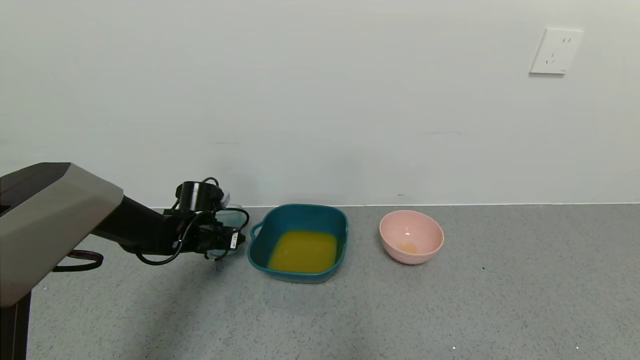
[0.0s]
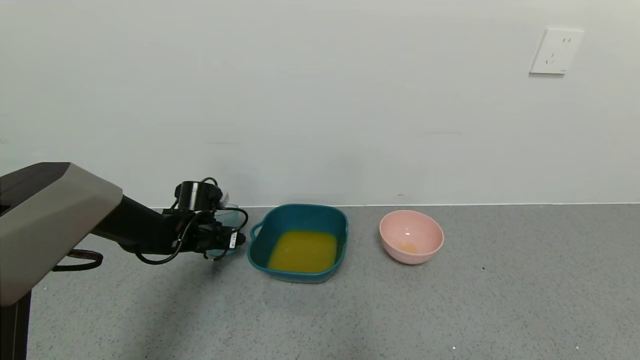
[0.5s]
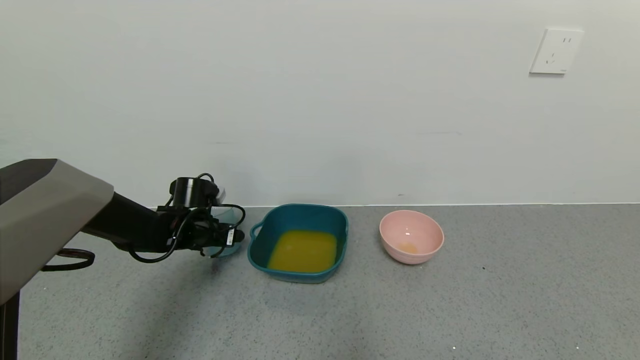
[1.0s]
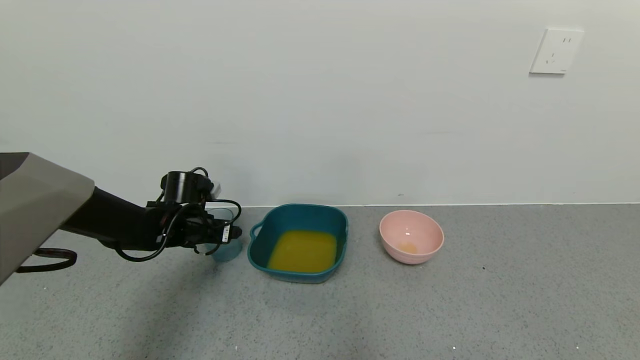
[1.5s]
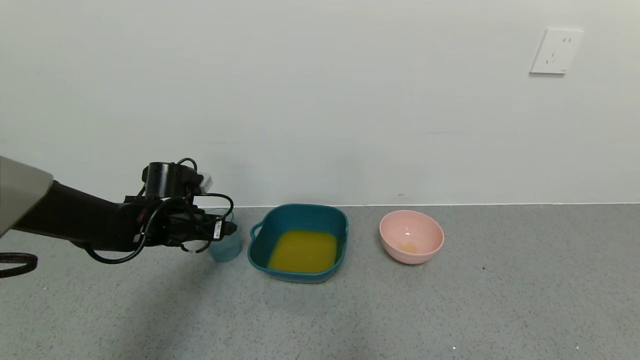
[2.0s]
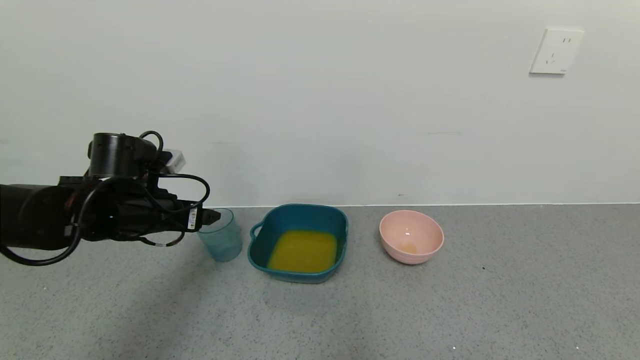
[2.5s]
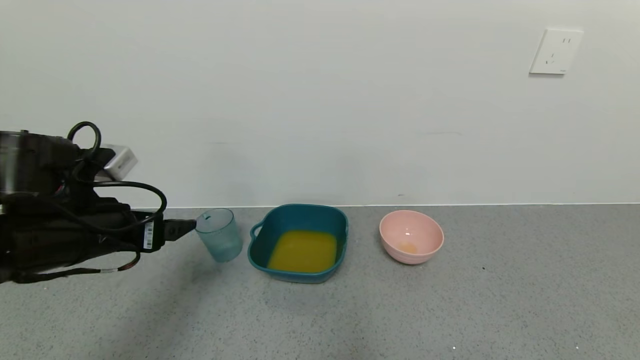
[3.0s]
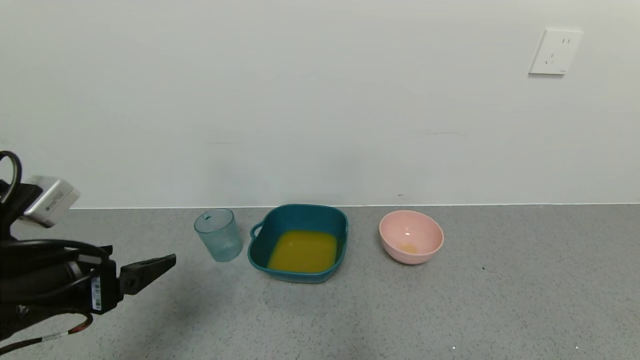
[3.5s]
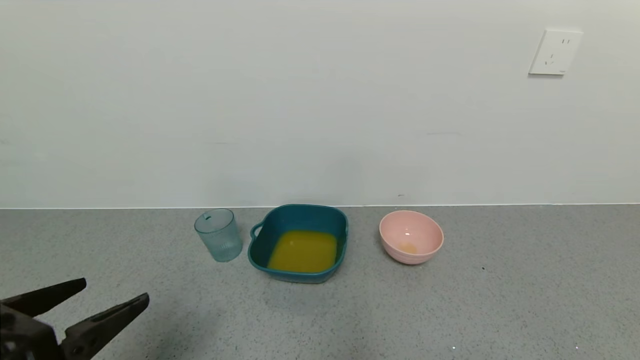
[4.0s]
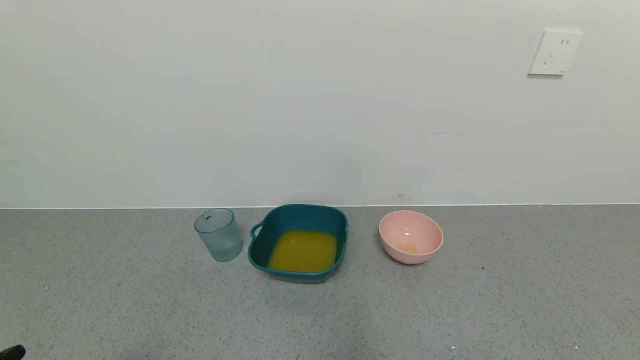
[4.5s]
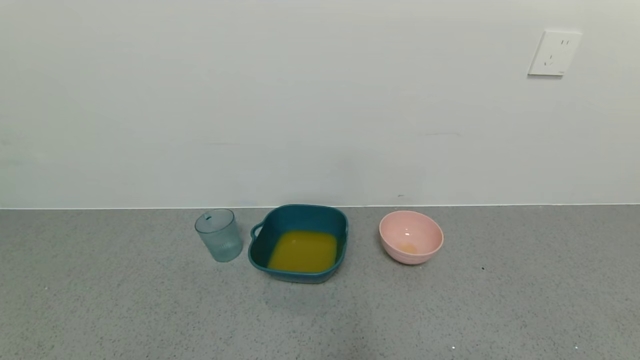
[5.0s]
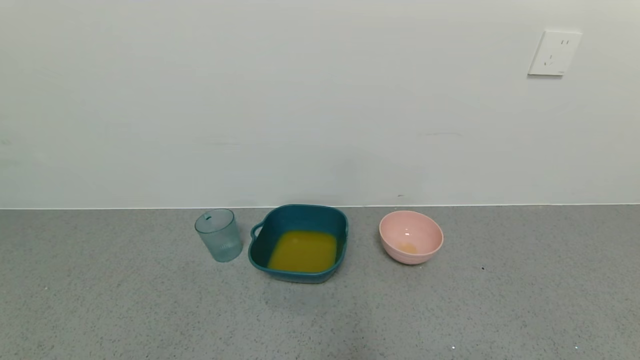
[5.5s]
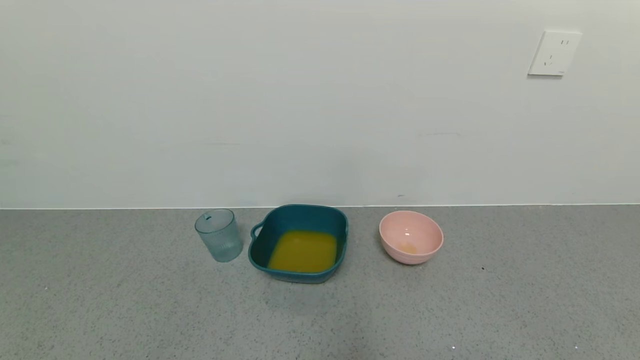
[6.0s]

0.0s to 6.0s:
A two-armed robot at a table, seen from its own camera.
Task of the whole recording: use a gripper to pick up the cup and pour the liquid into a bowl or tray.
0.0s to 2.0s: The left gripper moves upward, approximately 5 cm, and opens.
2.0s to 4.0s: The left gripper travels backward by some 30 cm.
4.0s to 6.0s: The left gripper travels downward and backward by roughly 15 cm.
